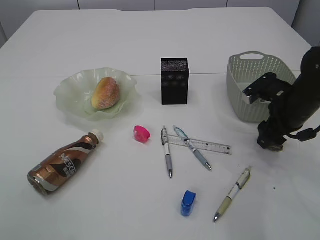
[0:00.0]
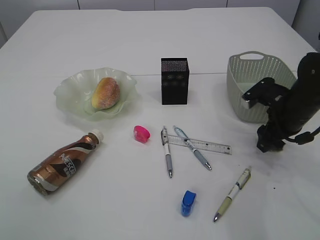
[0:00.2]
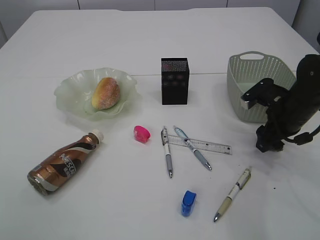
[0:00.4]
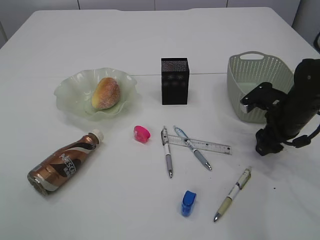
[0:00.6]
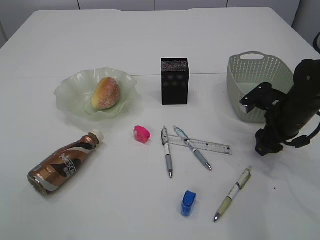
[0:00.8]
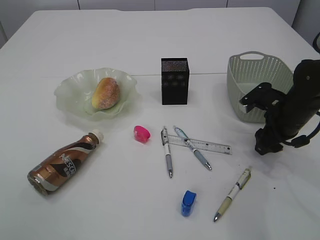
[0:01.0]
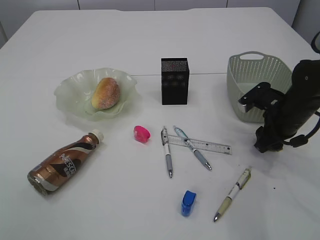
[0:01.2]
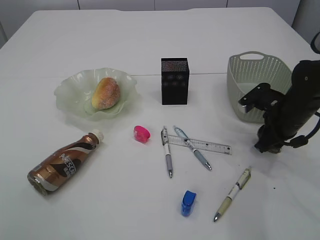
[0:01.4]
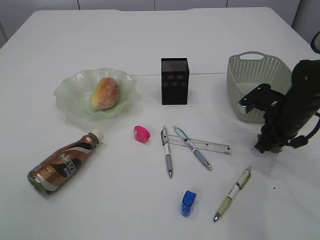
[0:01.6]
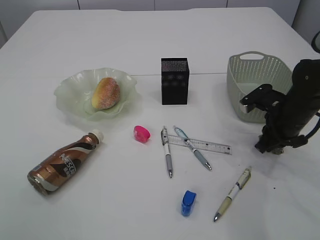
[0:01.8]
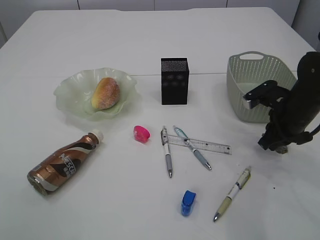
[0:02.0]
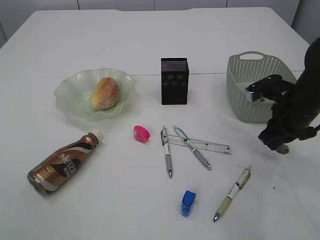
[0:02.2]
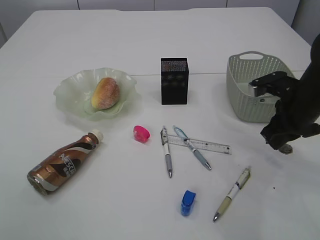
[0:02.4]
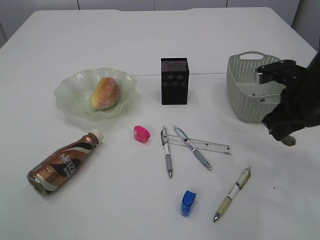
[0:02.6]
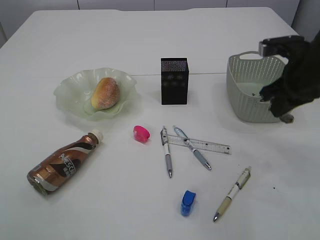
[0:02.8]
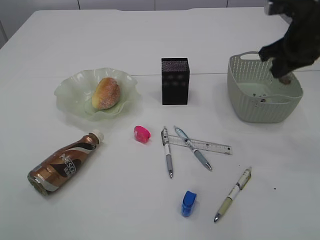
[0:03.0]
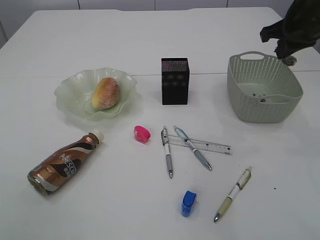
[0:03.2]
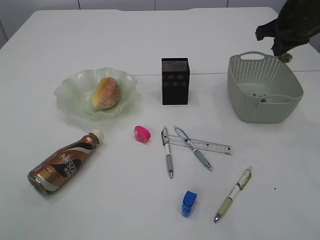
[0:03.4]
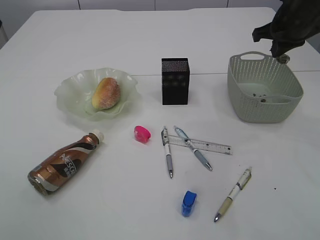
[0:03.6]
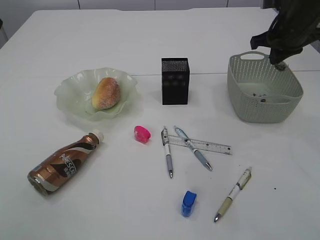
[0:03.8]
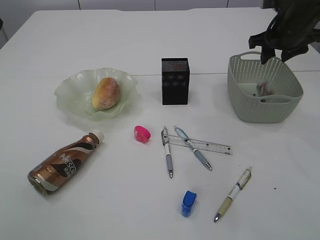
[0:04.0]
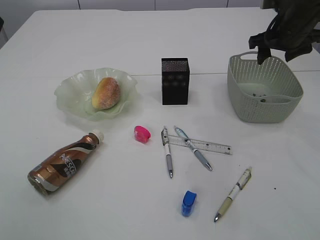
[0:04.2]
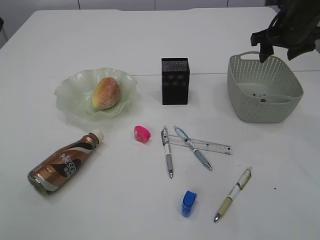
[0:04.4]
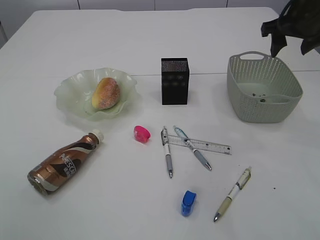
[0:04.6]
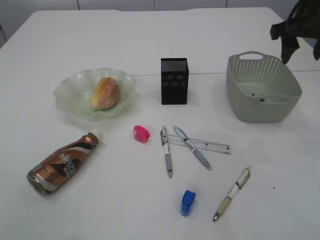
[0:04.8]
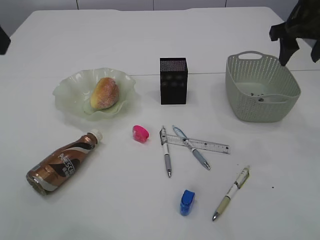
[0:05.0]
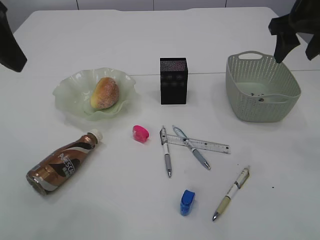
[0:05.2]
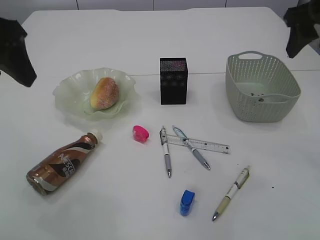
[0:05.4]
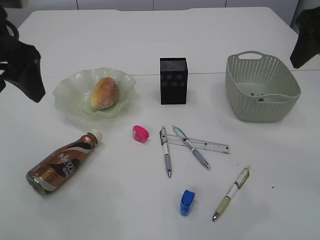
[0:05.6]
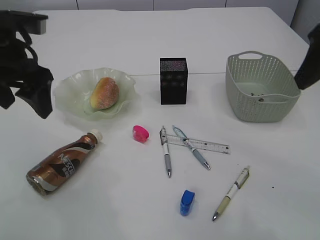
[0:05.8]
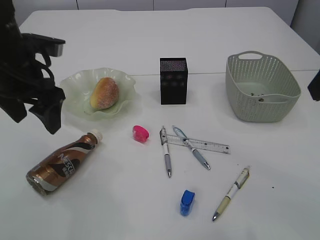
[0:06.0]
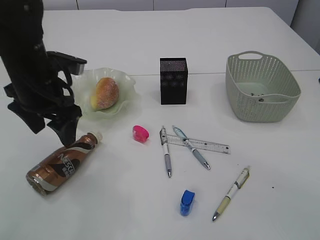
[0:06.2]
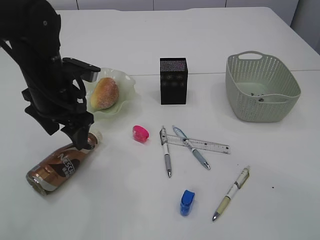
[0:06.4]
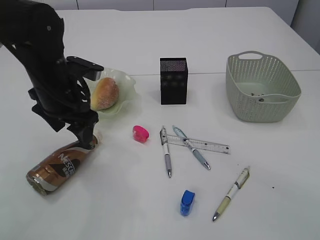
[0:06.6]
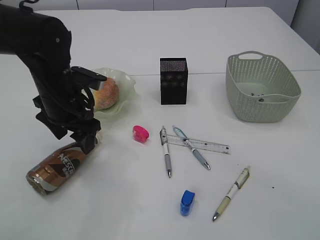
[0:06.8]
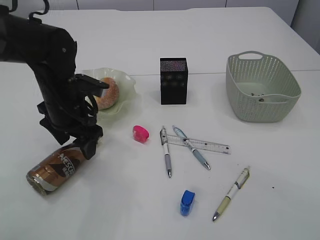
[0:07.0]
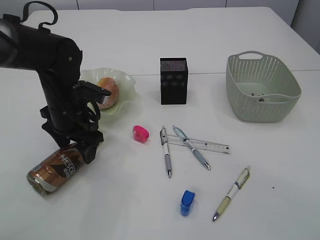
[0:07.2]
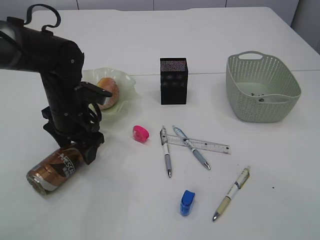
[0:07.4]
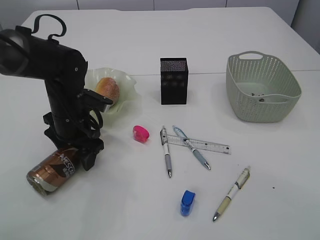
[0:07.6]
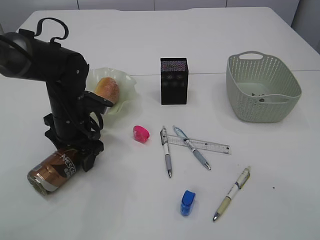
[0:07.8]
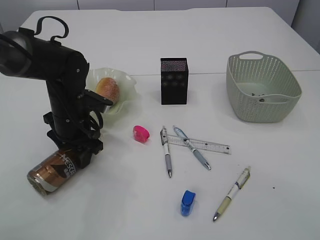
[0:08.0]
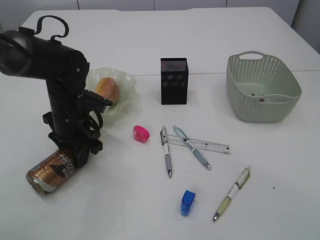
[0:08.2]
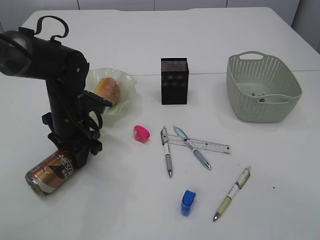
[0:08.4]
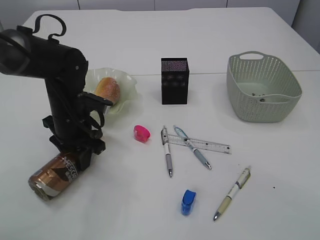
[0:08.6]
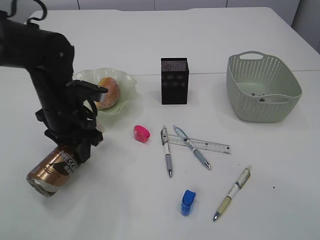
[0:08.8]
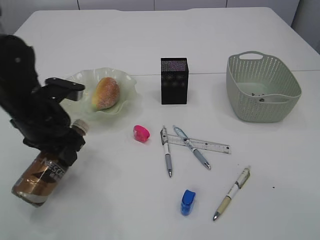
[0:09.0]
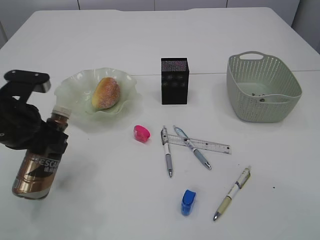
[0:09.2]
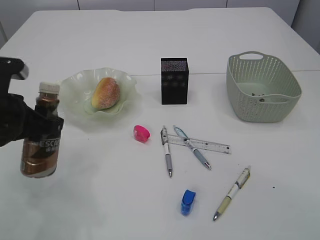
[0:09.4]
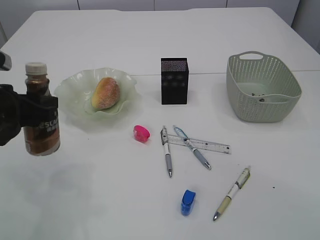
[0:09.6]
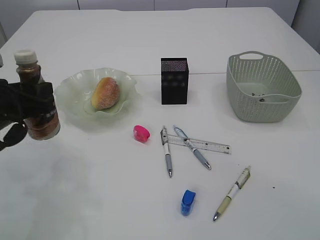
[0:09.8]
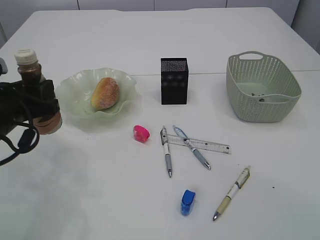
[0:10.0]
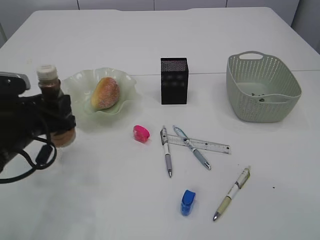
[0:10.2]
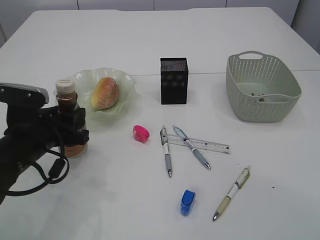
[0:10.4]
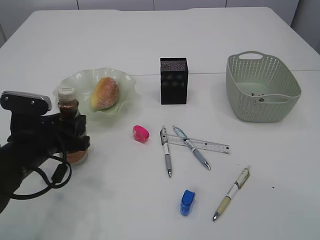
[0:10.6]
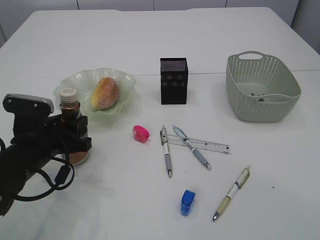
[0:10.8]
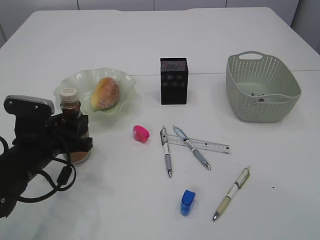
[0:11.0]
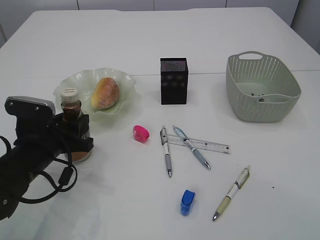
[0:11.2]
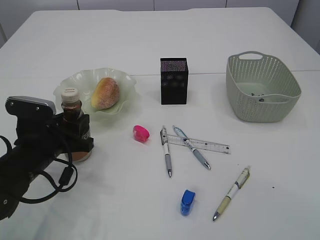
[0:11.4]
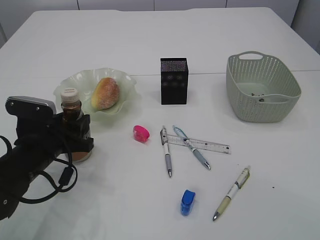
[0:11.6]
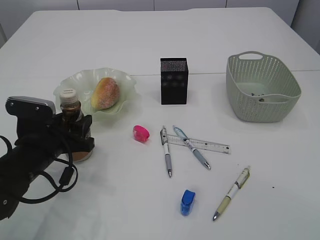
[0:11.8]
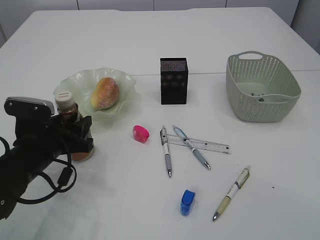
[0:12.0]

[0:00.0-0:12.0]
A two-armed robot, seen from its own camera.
Step, 0:00.0 to 0:02.6: Pick up the waste paper.
Step, 0:02.8 to 0:04.2: Place the waste paper in the basket.
Step, 0:04.4 to 0:09.0: Pick up the bottle with the left arm.
0:00.0 to 0:01.6: The right gripper closes up.
0:01.6 to 0:03.0: The right gripper travels upward by roughly 15 cm.
0:03.0 to 0:04.4: The right gripper heads forward, covering some 10 cm, and opens up.
0:04.4 to 0:06.0: The left gripper is displaced downward and forward by approximately 20 cm, while the right gripper heads backward and upward, covering some 25 cm.
0:06.0 to 0:07.6: The right gripper is displaced backward by about 5 cm. The left gripper travels downward by some 15 cm.
0:07.6 to 0:09.0: The left gripper changes place by about 5 cm, and closes its fingers.
0:09.0 to 0:10.4: The left gripper ends up approximately 5 cm from where it was.
0:10.4 to 0:12.0: The grippers stay close to where they were, moving slightly.

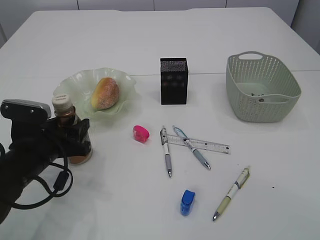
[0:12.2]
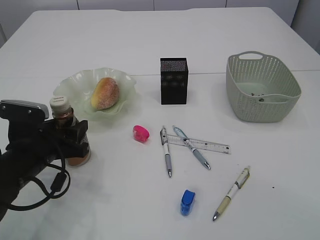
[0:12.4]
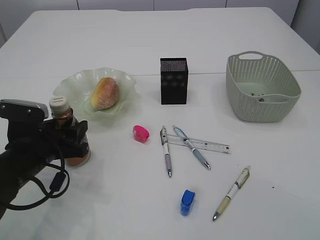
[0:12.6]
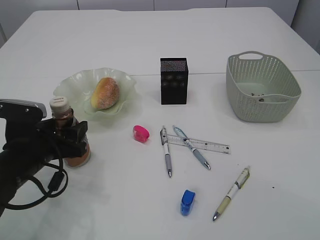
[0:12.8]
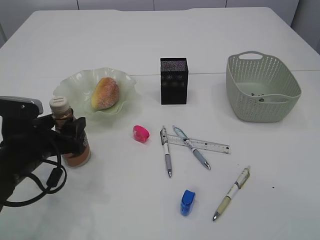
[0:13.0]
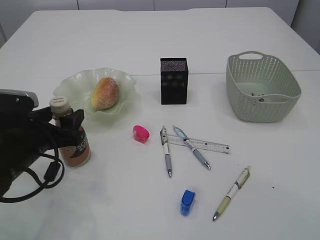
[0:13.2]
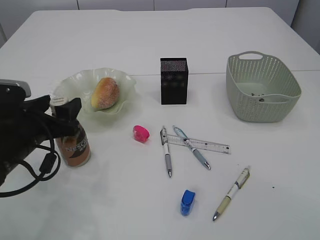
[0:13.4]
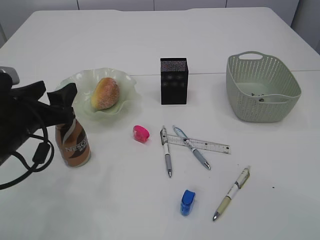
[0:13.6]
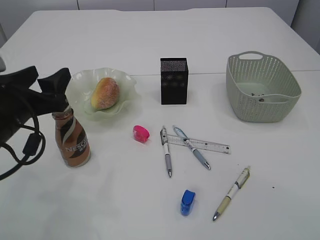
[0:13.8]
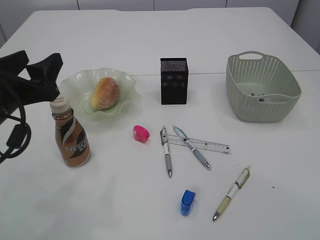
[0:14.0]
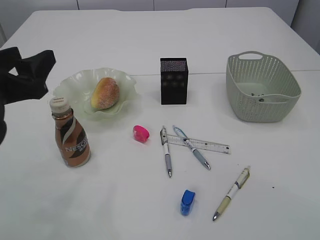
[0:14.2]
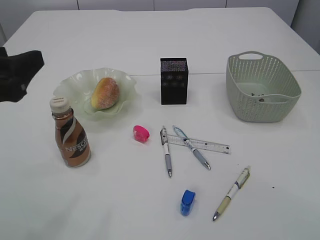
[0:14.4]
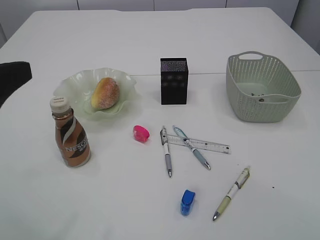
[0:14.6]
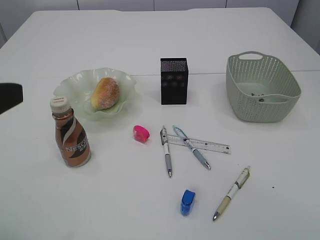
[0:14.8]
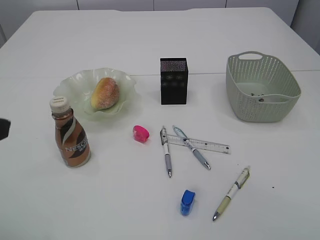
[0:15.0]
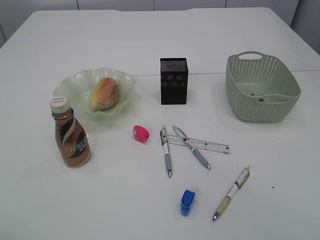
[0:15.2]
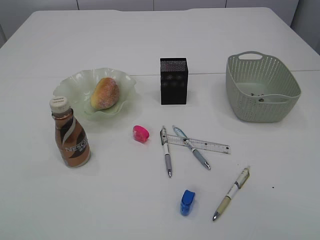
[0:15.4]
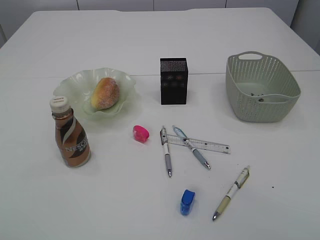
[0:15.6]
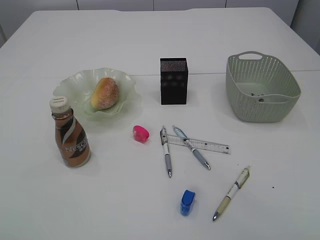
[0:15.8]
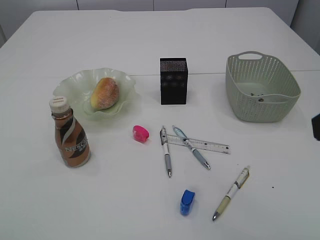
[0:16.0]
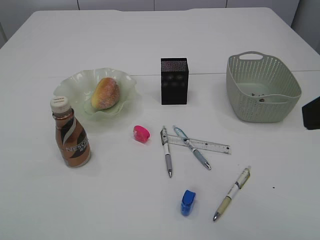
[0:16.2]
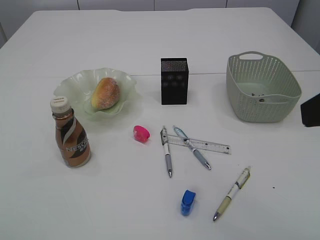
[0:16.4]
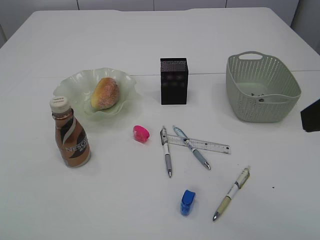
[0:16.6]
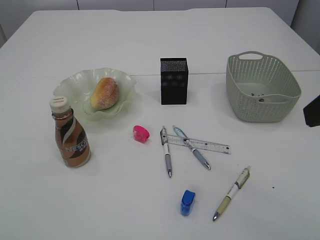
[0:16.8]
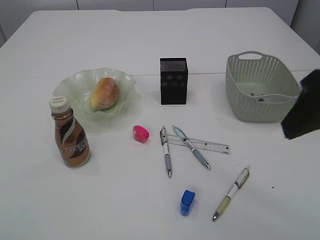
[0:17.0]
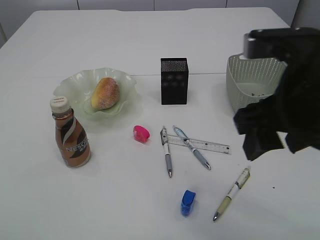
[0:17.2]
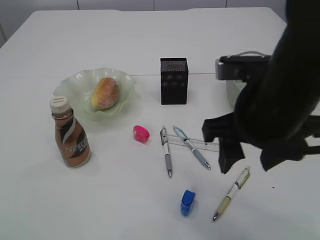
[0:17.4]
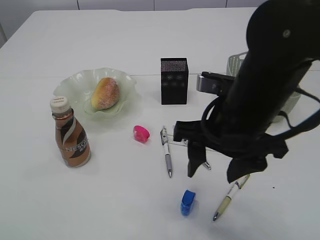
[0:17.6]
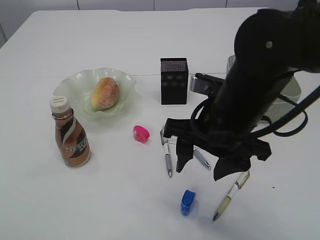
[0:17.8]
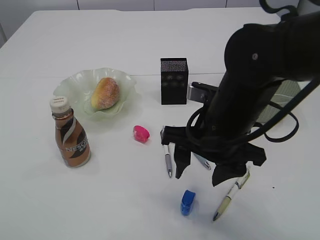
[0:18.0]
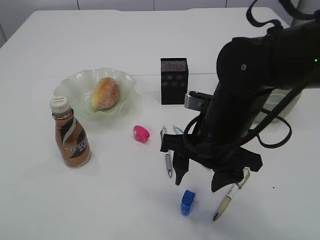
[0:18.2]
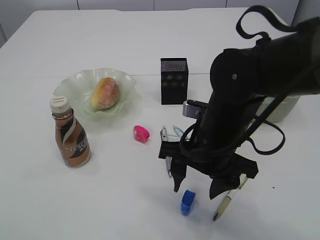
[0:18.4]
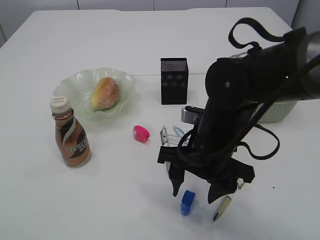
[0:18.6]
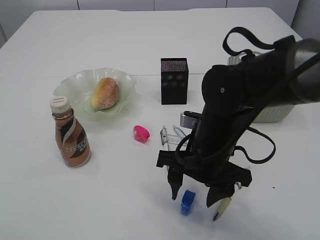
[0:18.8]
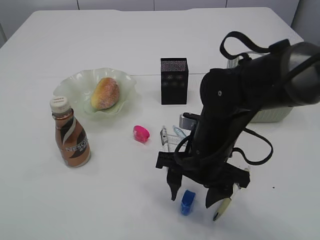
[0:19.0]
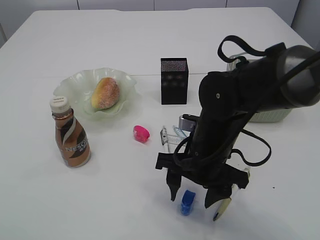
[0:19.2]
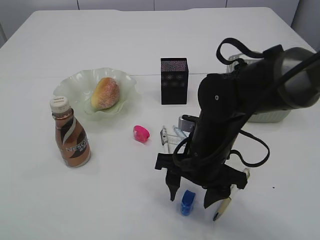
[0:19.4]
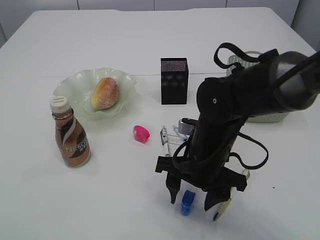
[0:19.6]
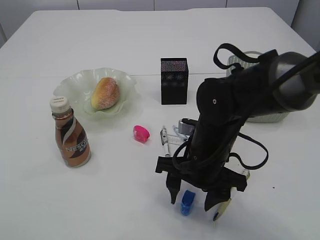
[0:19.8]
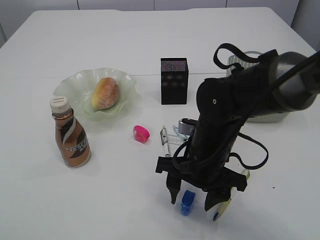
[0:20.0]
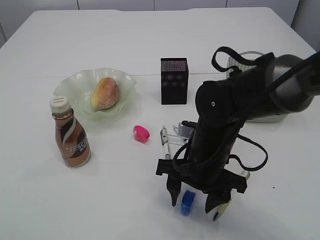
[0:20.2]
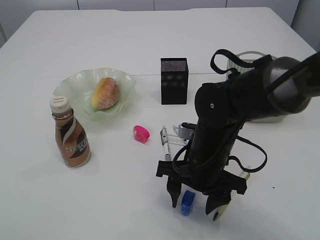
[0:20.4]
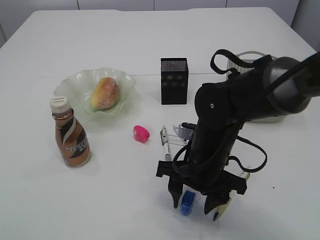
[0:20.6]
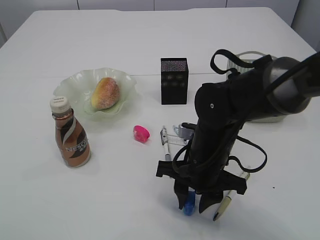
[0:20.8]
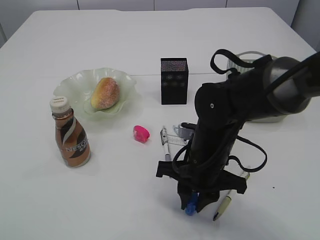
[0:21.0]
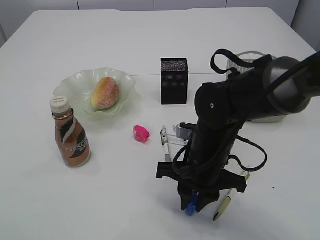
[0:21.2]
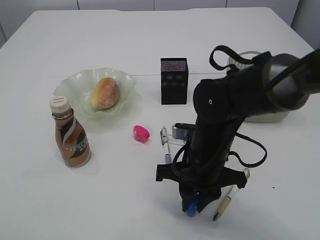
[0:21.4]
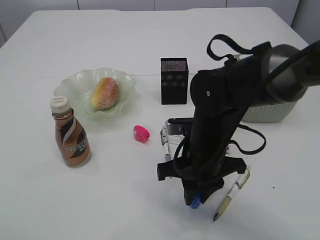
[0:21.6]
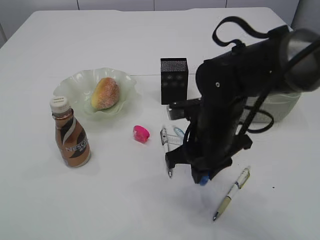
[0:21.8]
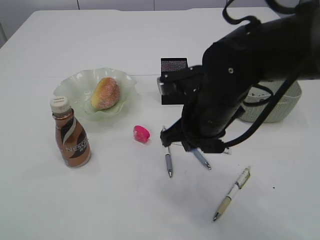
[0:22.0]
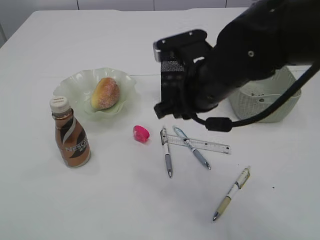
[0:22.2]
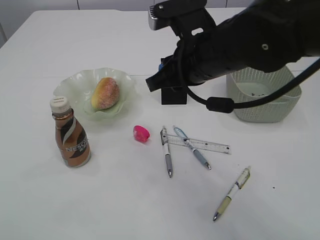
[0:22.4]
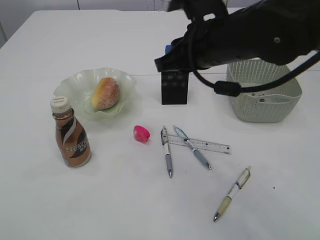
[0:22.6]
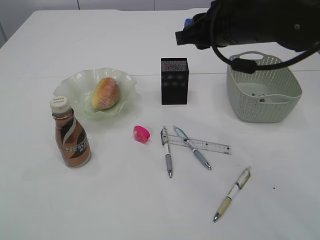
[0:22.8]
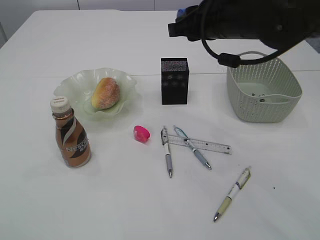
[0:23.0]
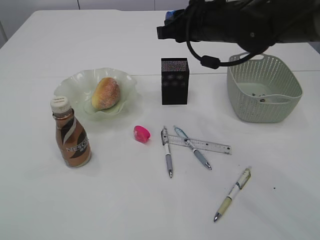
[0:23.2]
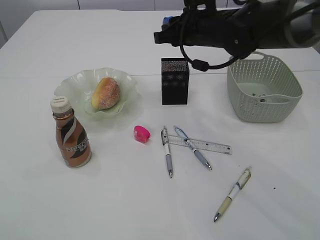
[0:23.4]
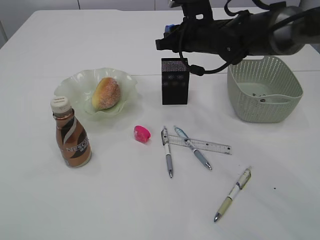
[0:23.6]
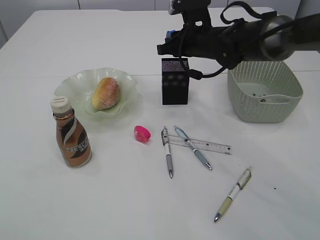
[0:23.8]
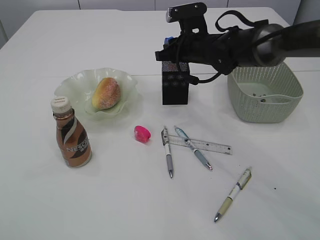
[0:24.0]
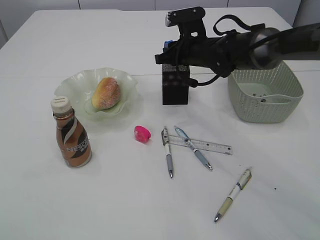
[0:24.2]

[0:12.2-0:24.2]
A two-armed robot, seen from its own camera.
Step, 0:14.0 to 0:21.8: Pick up the blue pencil sharpener.
0:12.2 to 0:13.8: The left gripper is displaced upward by some 10 cm.
0:13.8 to 0:15.2: The left gripper is displaced backward, upward and to the left by approximately 15 cm.
0:15.2 to 0:16.6: The right gripper heads downward, covering about 5 cm.
0:16.6 to 0:18.2: The right gripper is displaced downward, to the left and forward by roughly 25 cm.
0:18.2 to 0:19.8: The right gripper heads downward, covering roughly 5 cm.
0:19.8 to 0:21.2: The right gripper closes up.
0:21.2 to 0:22.6: The right gripper is displaced upward by approximately 15 cm.
0:22.6 to 0:24.2: The right gripper shifts approximately 20 cm forward and downward.
